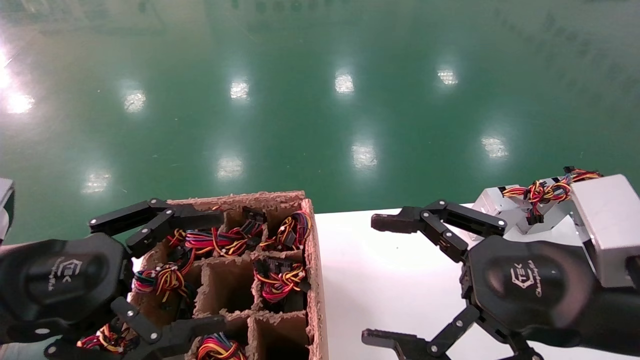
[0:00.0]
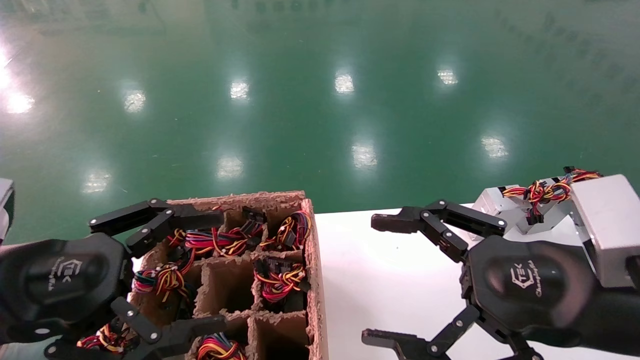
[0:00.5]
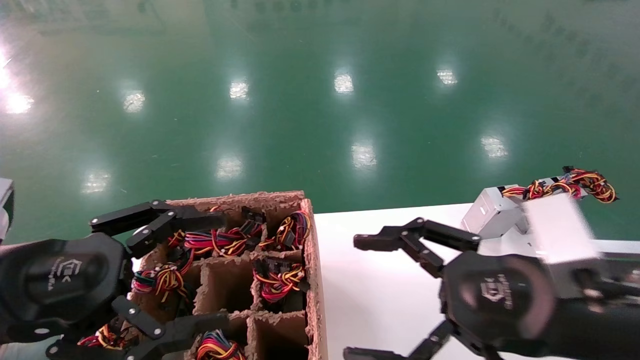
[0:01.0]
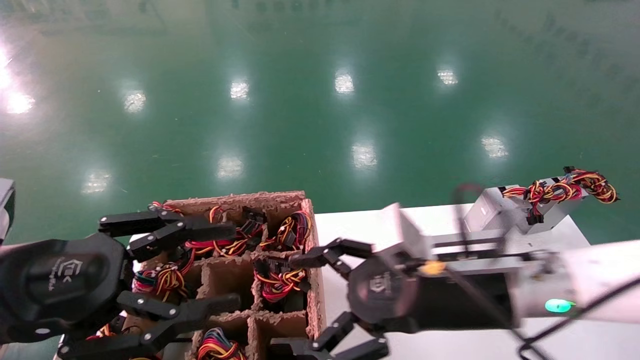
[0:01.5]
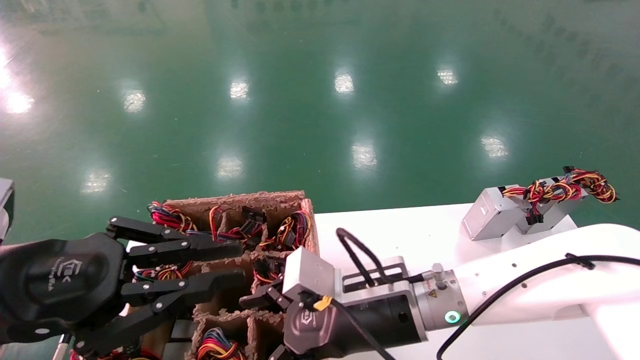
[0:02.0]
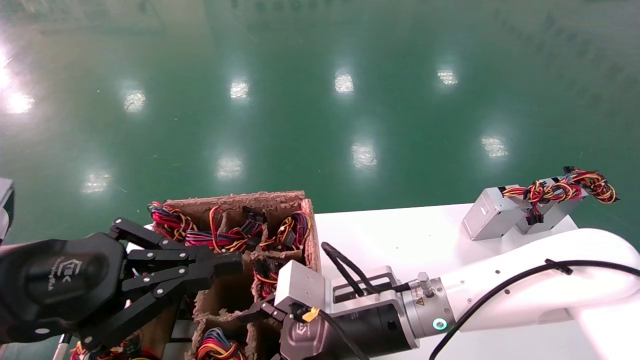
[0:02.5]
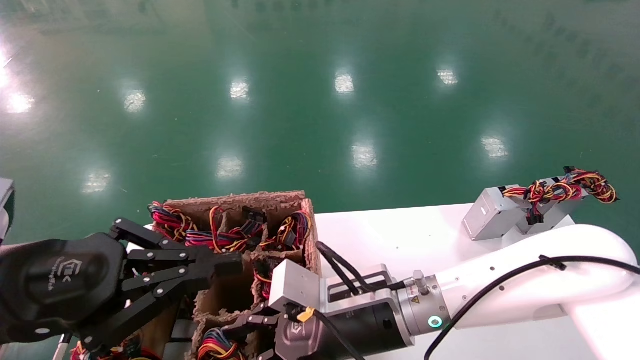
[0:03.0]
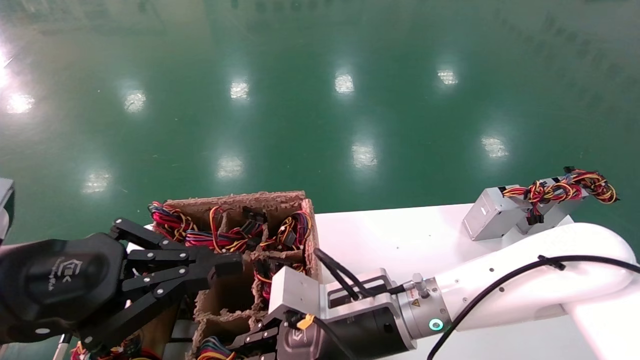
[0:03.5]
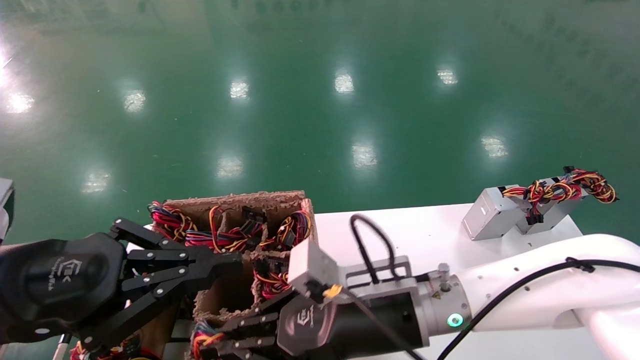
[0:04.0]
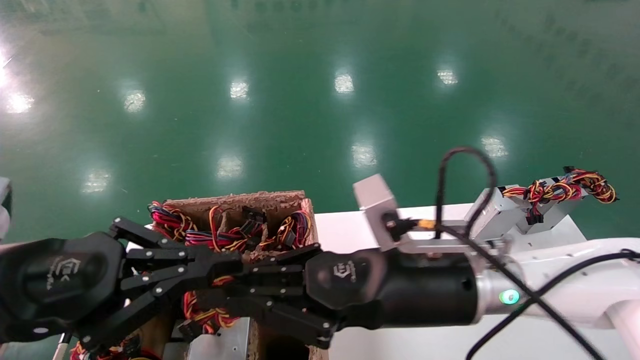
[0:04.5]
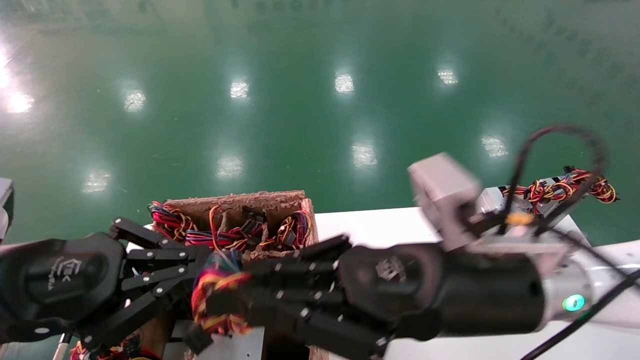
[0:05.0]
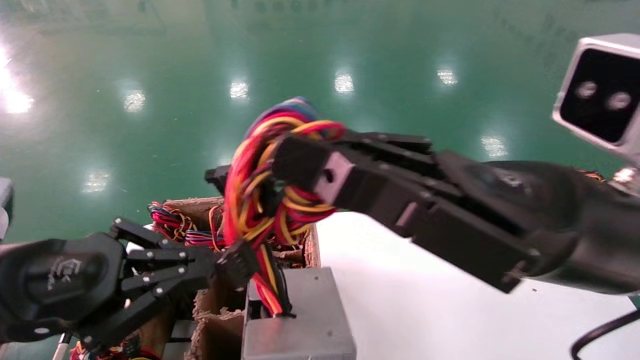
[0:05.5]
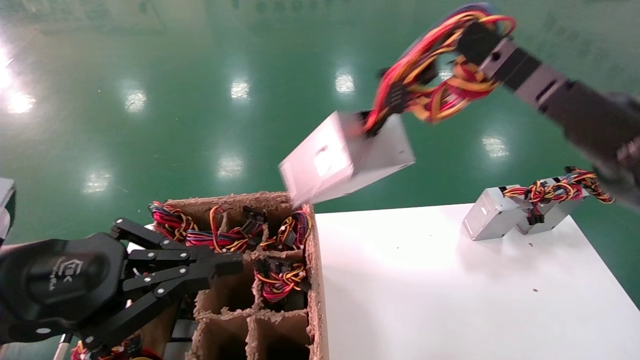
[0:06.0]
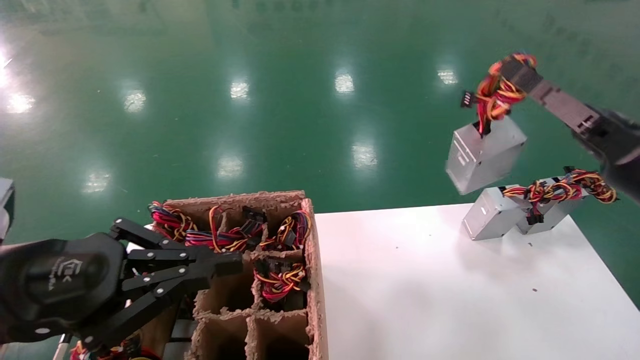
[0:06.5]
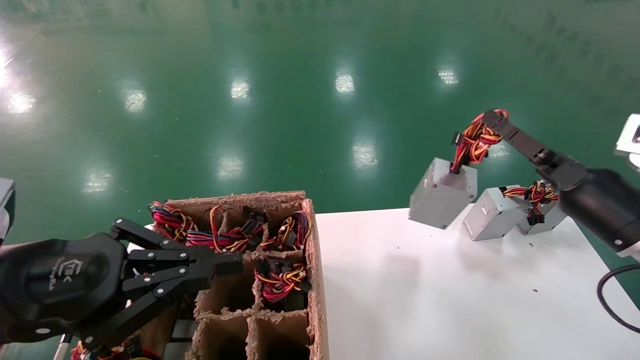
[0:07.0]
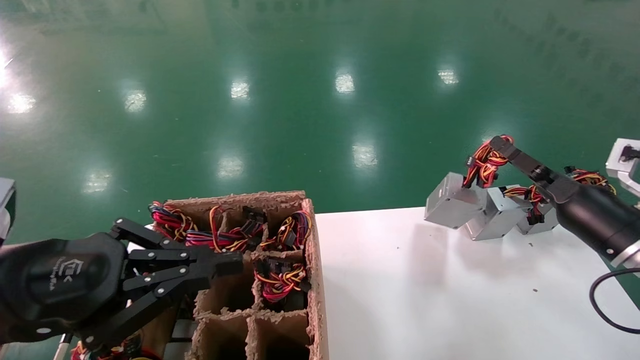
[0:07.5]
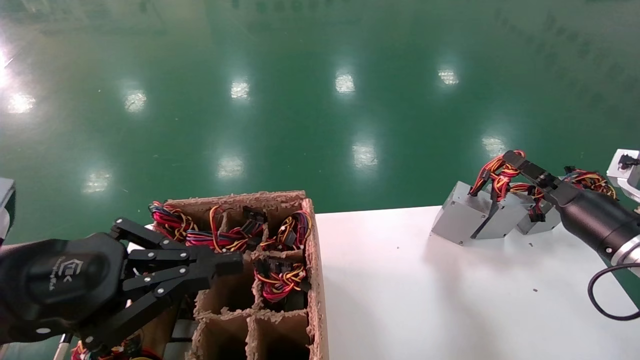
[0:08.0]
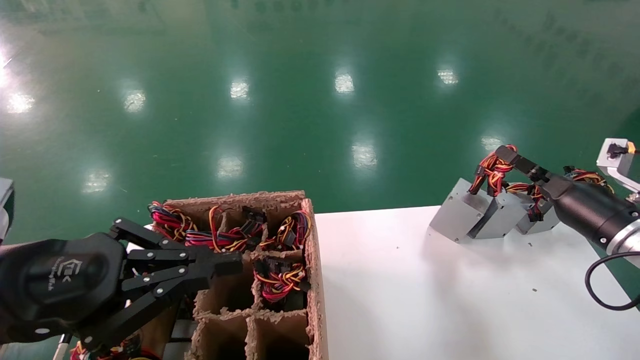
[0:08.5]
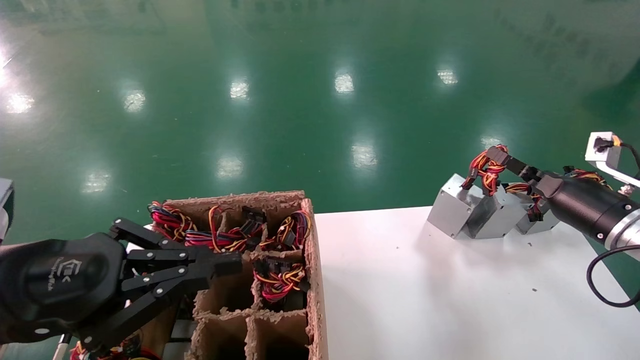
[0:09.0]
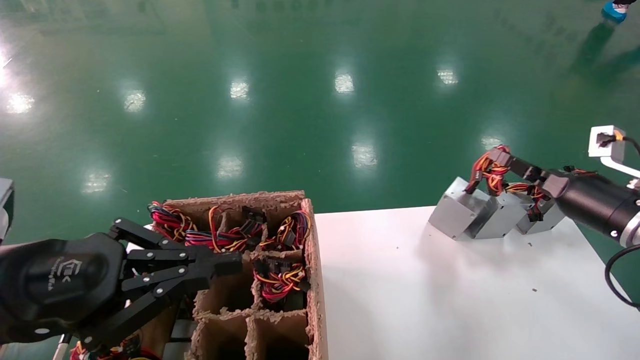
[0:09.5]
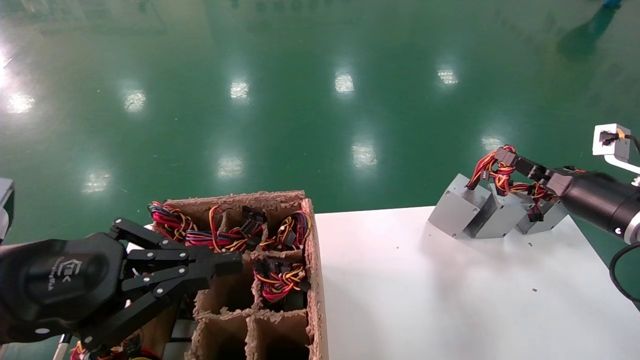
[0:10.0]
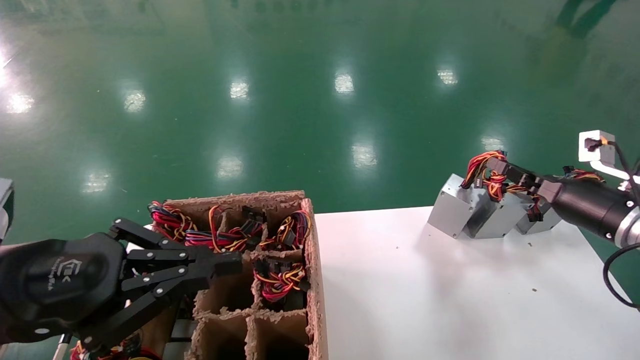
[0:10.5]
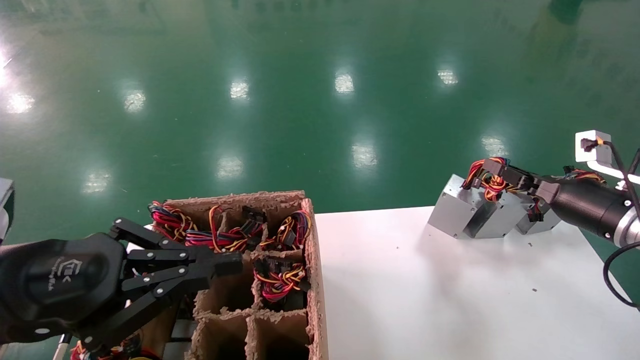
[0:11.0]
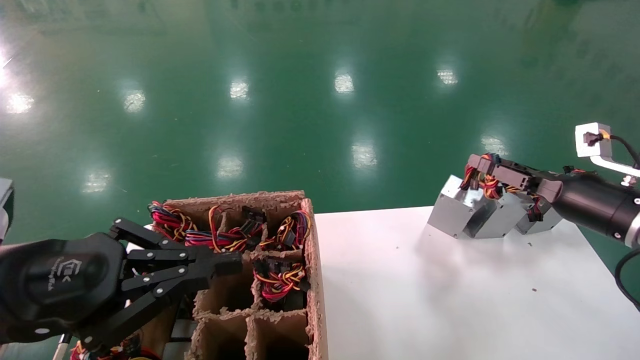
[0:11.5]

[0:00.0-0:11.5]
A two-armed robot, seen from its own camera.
Step, 0:01.5 to 0:03.5: Grab the main unit power supply from the containment box.
0:00.0 to 0:02.0: The right gripper moves to the left, forward and downward, roughly 20 cm. The left gripper closes.
0:02.0 to 0:04.0: The right gripper closes up.
0:04.0 to 0:06.0: The right gripper moves to the right and upward, some 25 cm.
0:06.0 to 0:07.5: The right gripper is displaced forward, downward and to the right by approximately 20 cm.
0:07.5 to 0:09.5: There are only small adjustments of the grippers.
0:09.5 to 0:11.5: The right gripper opens up.

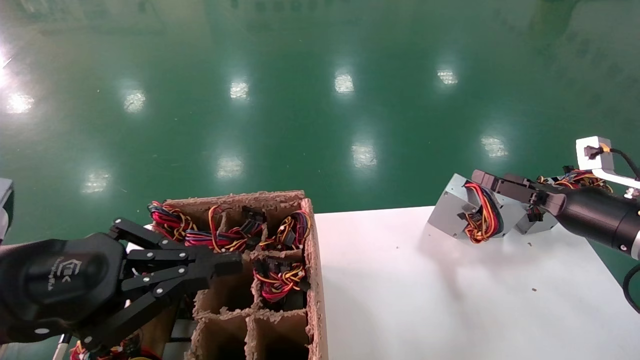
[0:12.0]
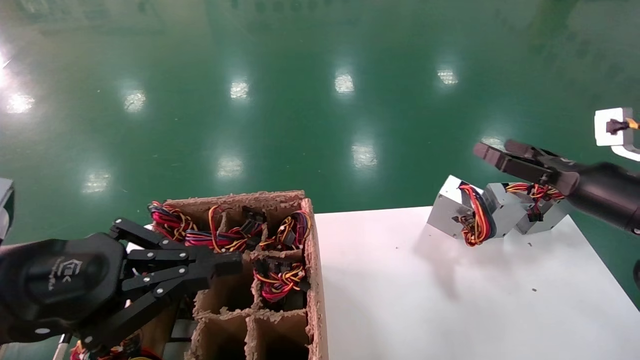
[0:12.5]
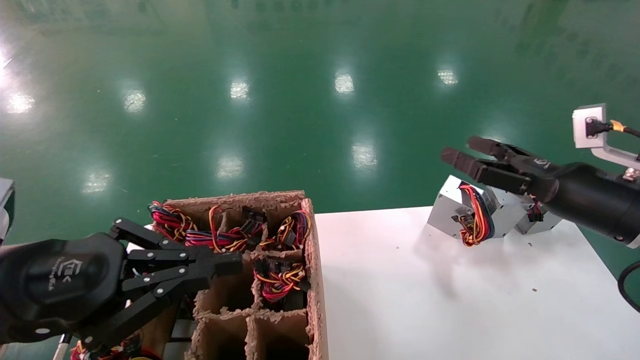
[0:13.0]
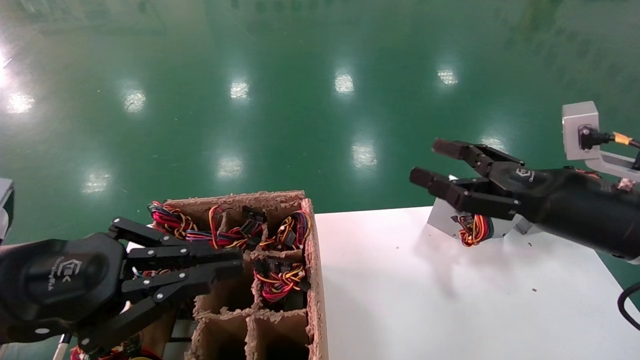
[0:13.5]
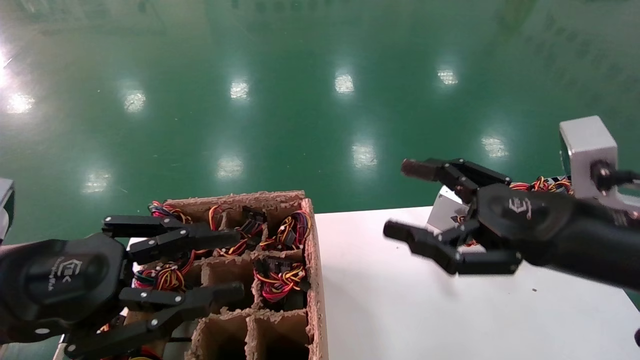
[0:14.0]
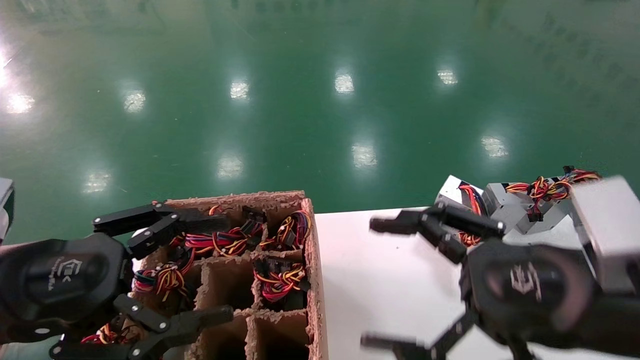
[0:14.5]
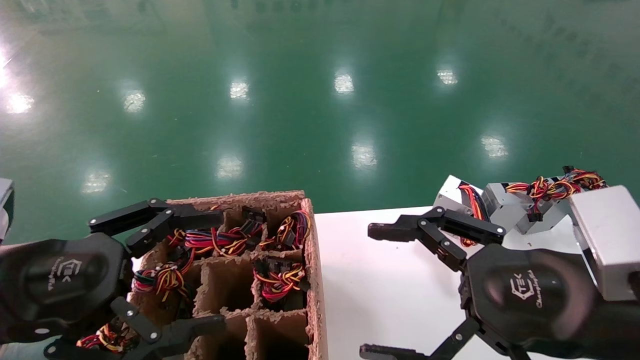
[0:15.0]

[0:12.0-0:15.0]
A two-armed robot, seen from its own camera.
0:12.0 to 0:13.5: The right gripper moves to the left and backward, approximately 15 cm.
0:13.5 to 0:15.0: The left gripper opens its fingers, while the right gripper goes approximately 15 cm backward and to the left.
